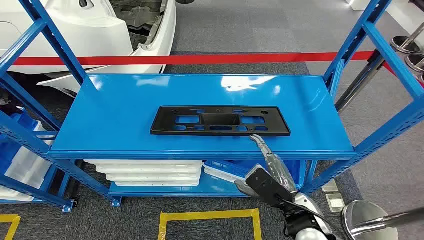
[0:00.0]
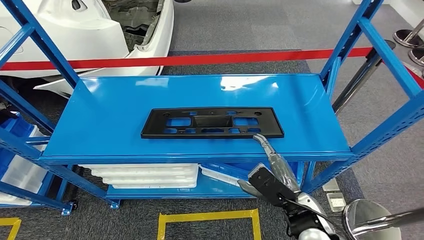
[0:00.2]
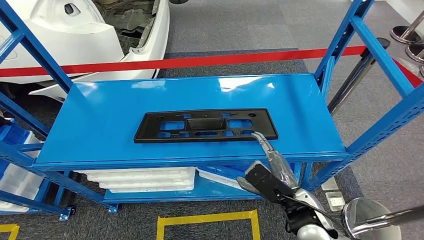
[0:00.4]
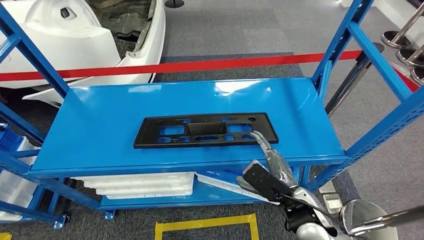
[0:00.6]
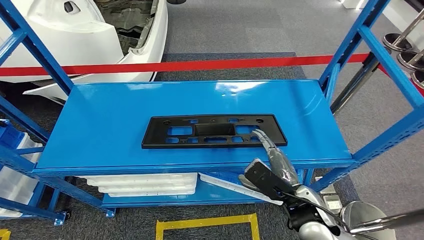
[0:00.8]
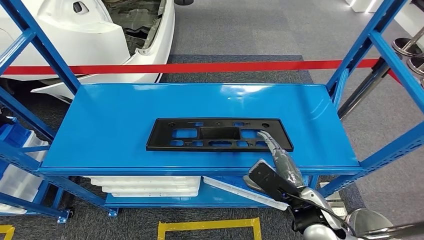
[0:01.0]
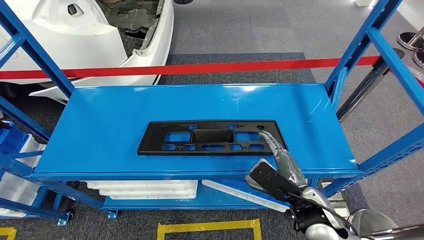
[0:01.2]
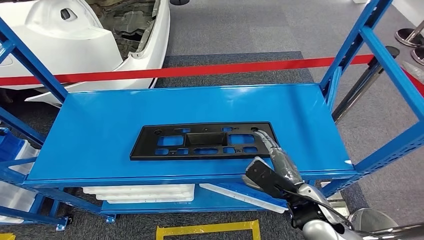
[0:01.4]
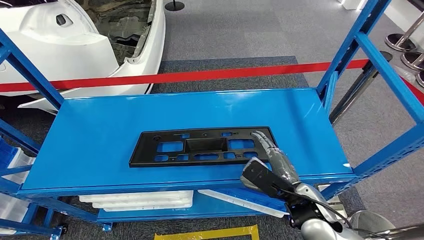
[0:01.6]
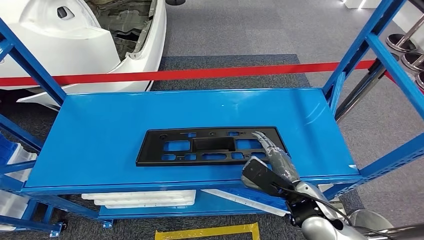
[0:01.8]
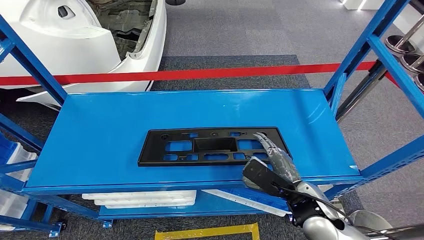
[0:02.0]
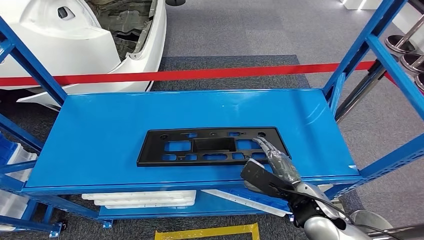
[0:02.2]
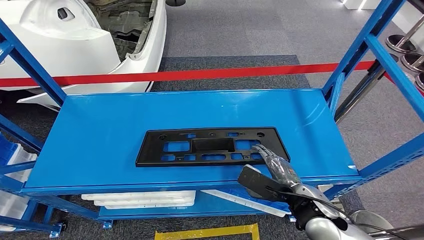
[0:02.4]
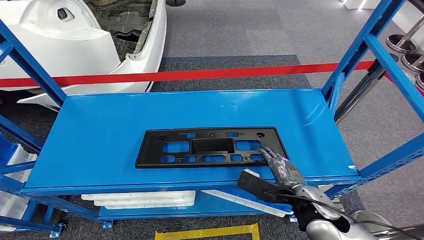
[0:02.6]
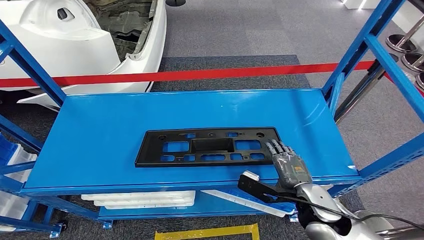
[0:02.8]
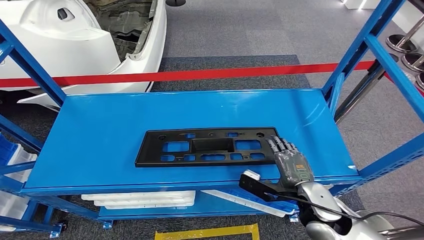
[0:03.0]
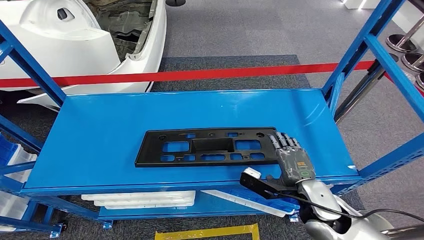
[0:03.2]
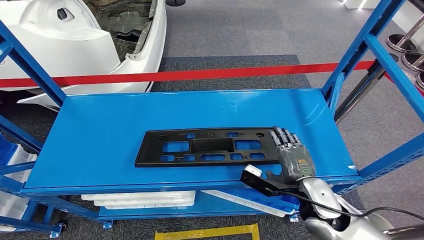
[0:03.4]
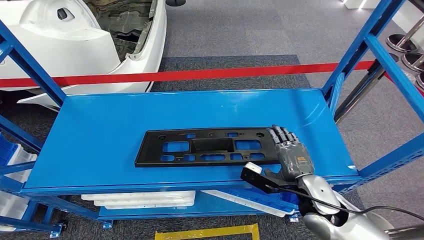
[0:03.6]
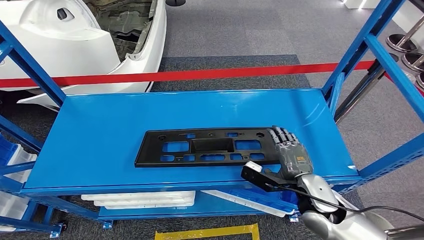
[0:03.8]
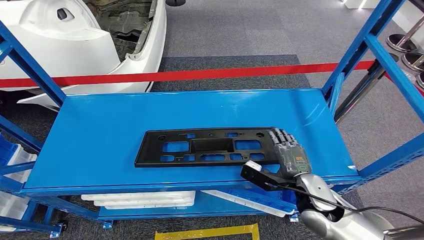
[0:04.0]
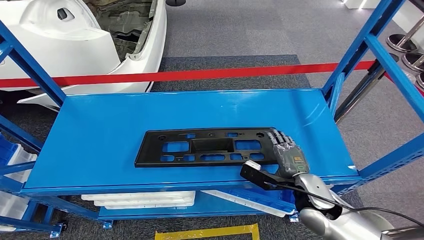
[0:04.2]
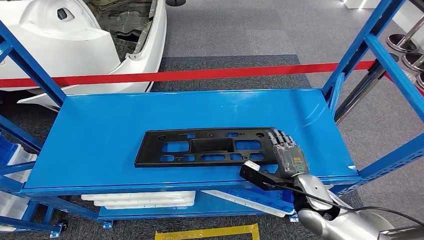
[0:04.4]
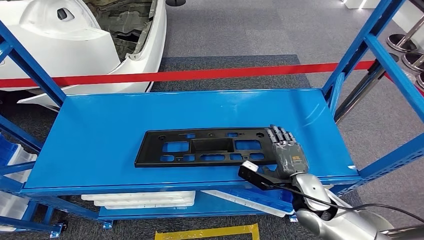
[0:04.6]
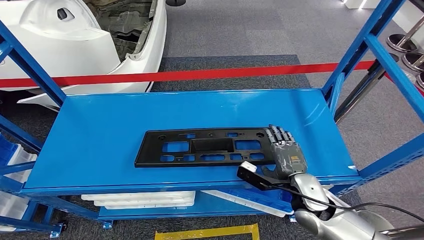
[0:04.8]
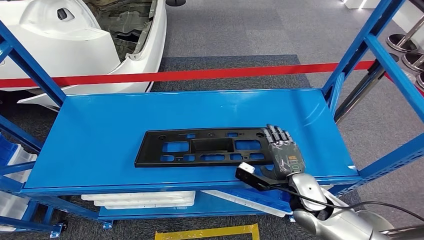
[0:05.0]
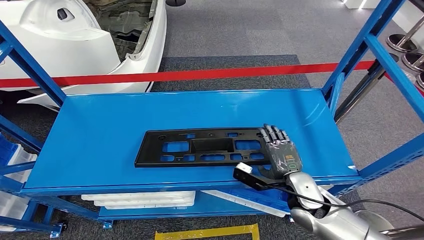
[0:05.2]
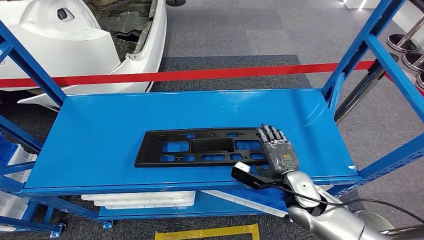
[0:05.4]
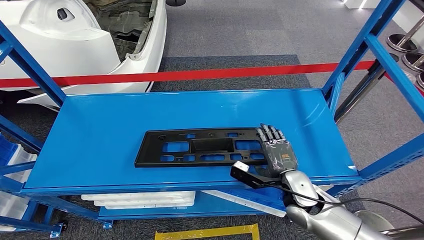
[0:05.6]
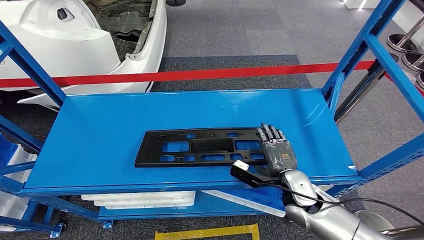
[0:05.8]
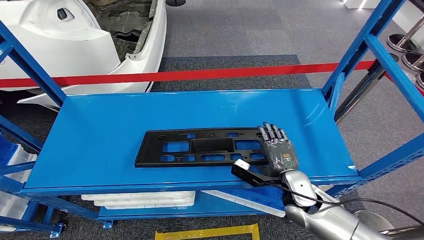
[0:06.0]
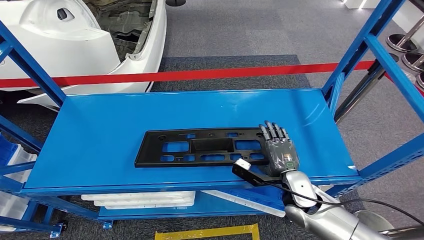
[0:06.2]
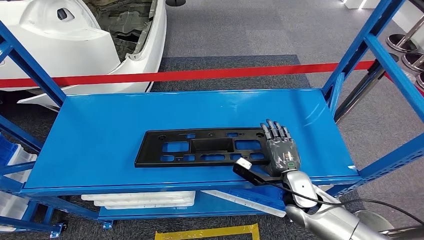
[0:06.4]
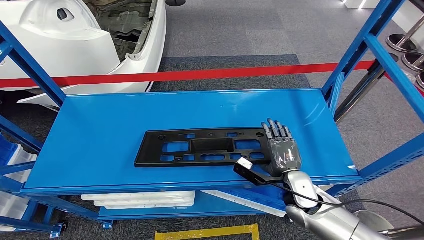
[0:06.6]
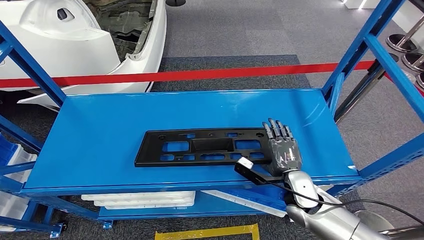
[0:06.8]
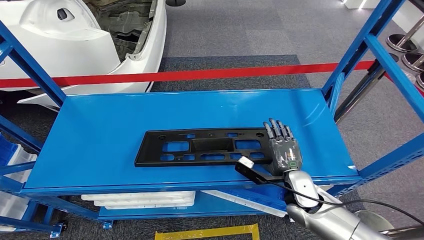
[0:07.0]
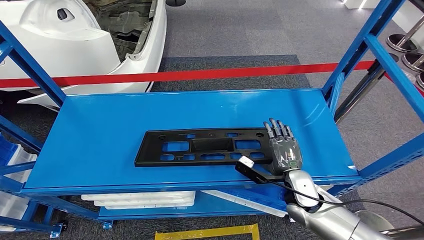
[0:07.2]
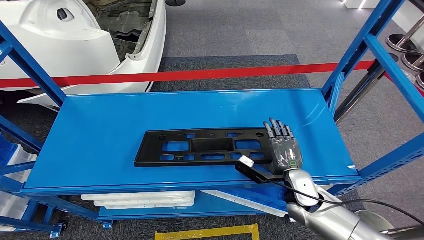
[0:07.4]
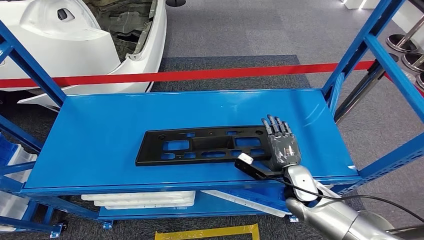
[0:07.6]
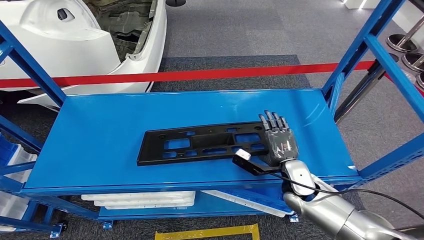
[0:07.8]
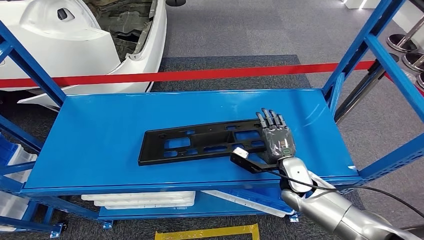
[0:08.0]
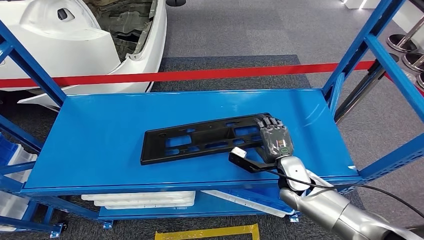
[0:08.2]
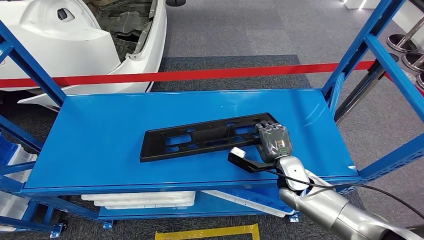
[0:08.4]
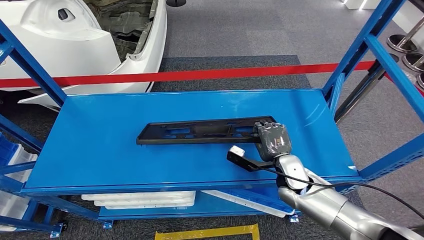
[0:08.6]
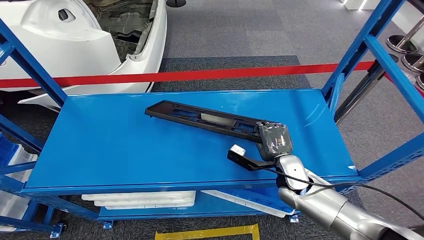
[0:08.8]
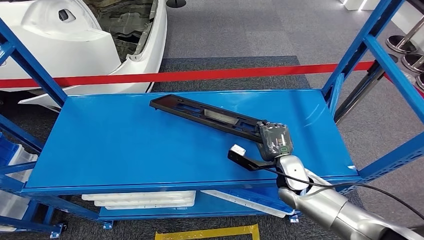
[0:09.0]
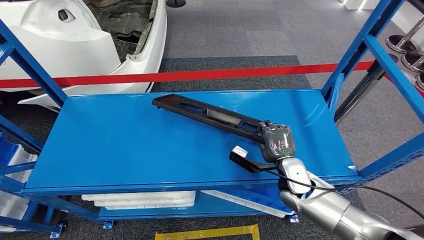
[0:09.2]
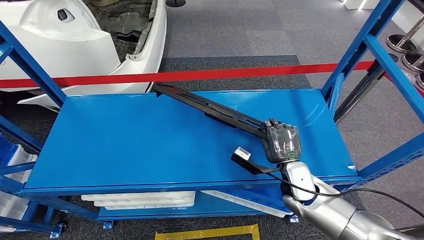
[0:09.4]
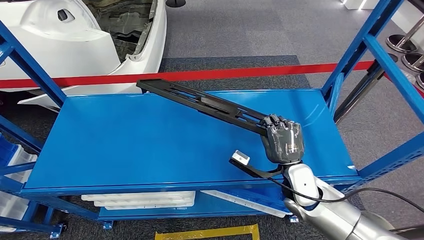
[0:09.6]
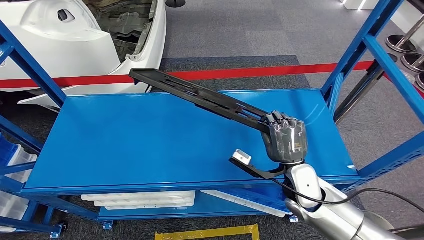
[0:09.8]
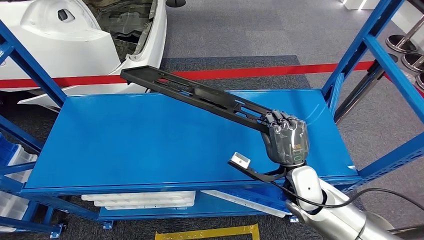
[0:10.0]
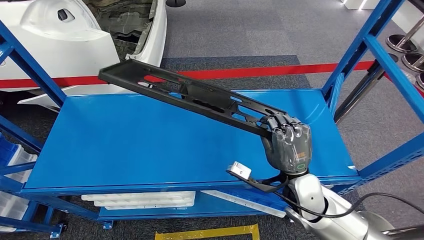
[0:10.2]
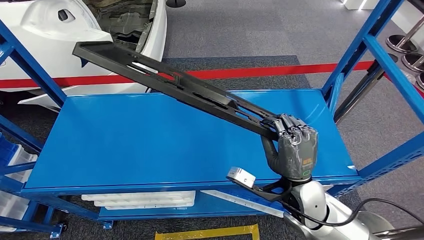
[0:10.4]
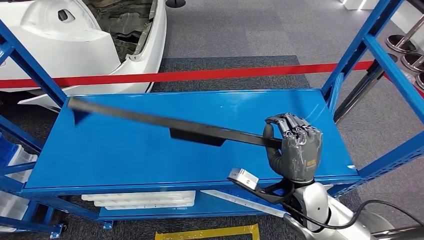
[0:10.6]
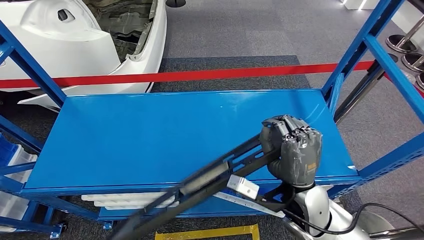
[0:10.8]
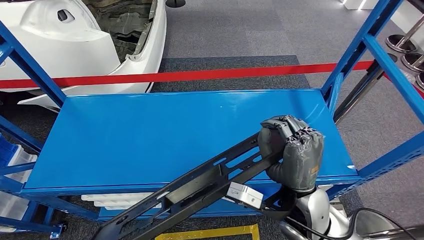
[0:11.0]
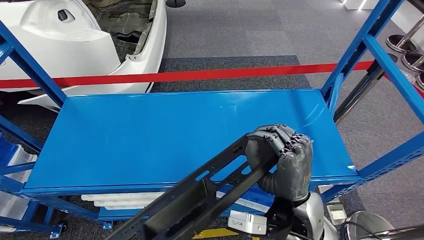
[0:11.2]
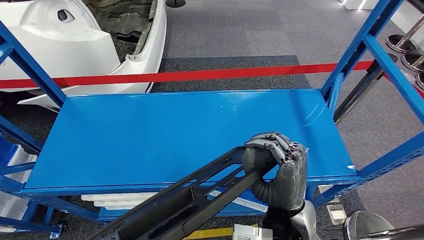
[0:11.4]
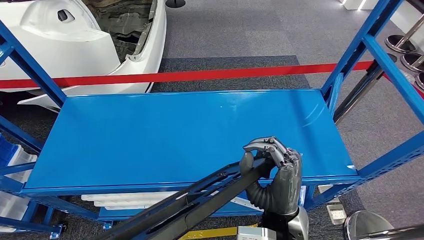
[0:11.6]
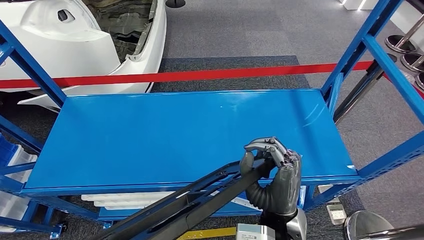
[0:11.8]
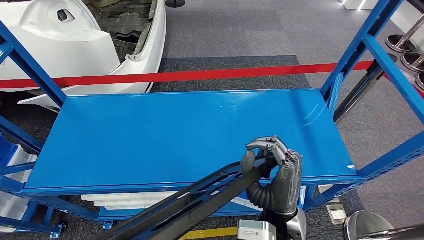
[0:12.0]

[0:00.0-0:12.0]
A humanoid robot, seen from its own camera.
0:03.0 to 0:04.4: There are only small adjustments of the hands.
0:04.4 to 0:07.6: The hands make only small movements.
0:07.6 to 0:09.0: The hands move only a little.
0:09.0 to 0:10.4: The right hand goes roughly 10 cm backward and upward.
0:10.4 to 0:12.0: The right hand travels to the left and backward by some 10 cm.

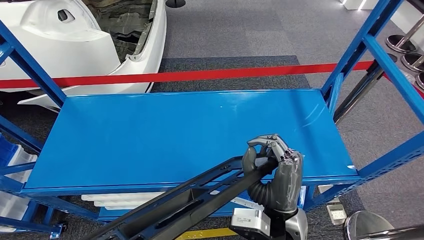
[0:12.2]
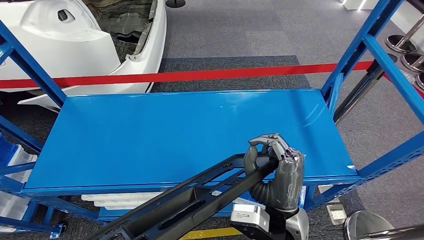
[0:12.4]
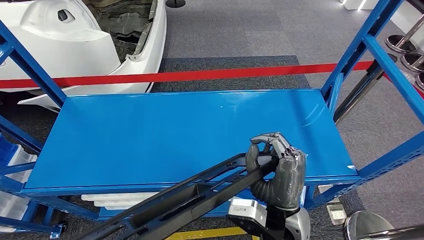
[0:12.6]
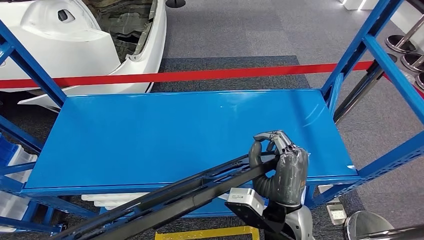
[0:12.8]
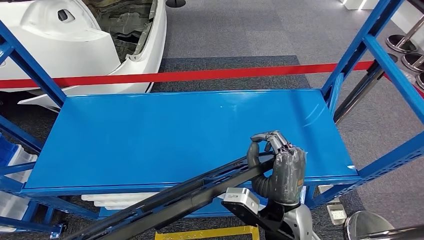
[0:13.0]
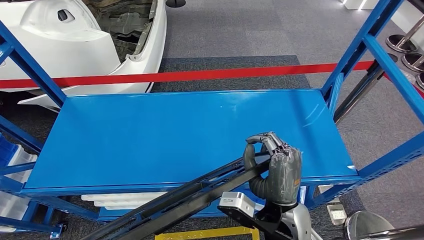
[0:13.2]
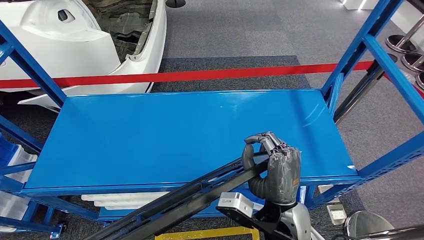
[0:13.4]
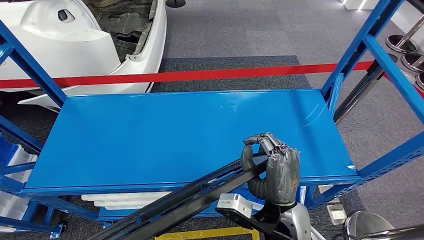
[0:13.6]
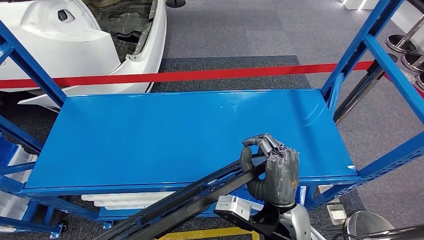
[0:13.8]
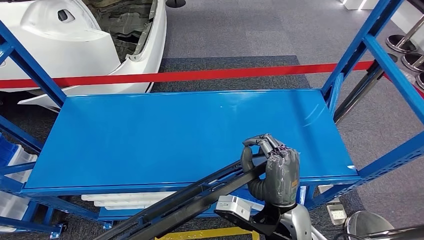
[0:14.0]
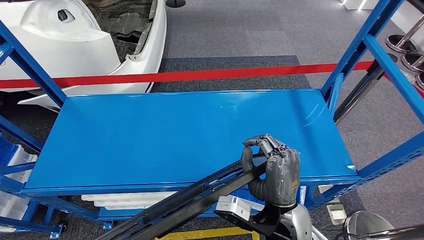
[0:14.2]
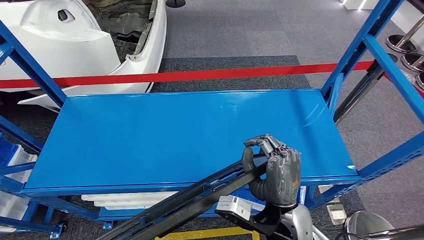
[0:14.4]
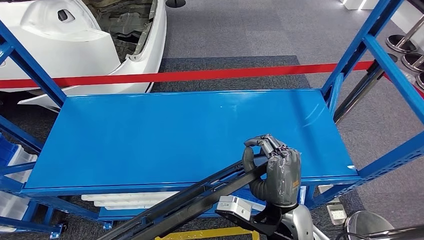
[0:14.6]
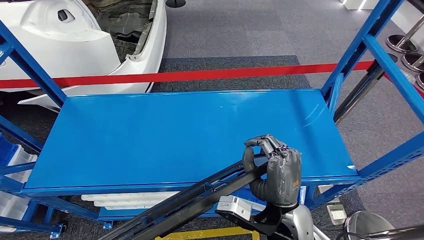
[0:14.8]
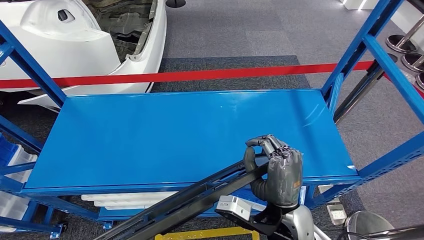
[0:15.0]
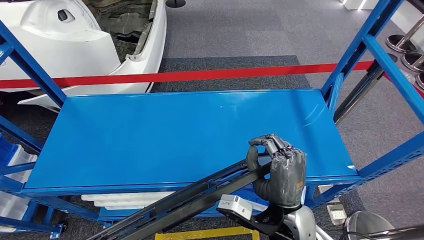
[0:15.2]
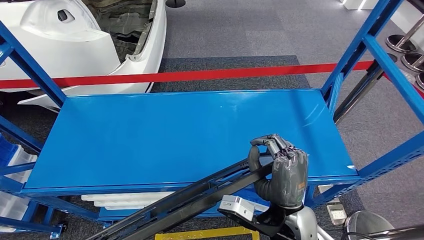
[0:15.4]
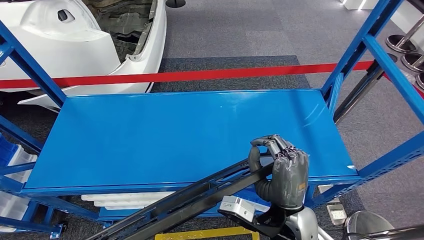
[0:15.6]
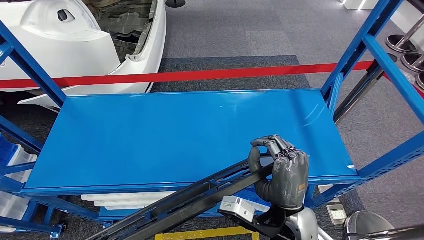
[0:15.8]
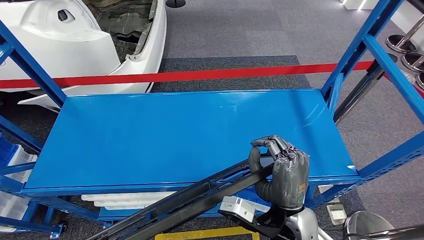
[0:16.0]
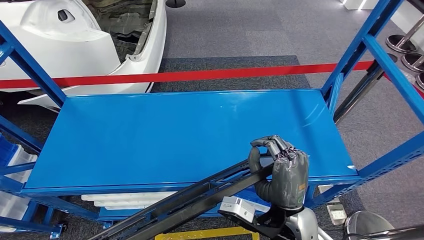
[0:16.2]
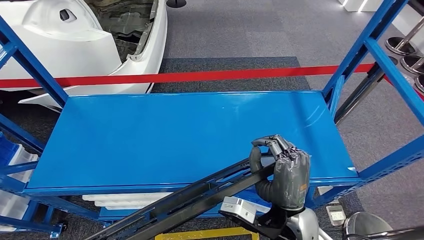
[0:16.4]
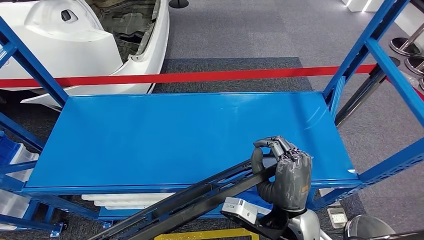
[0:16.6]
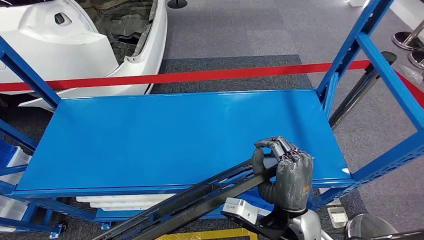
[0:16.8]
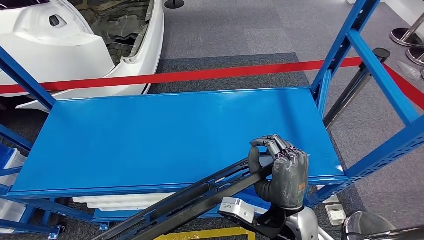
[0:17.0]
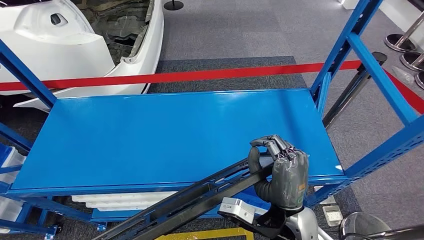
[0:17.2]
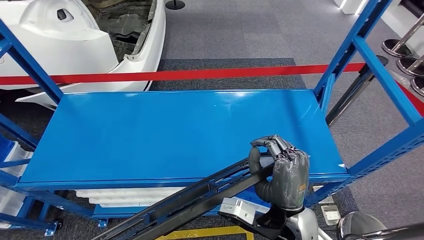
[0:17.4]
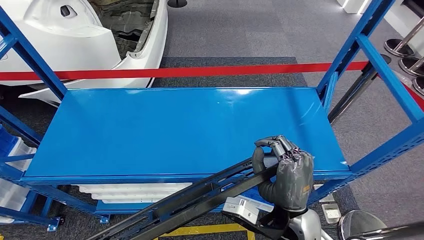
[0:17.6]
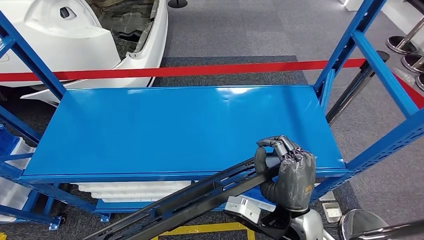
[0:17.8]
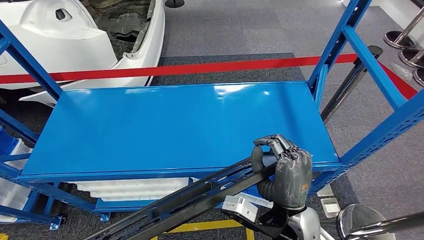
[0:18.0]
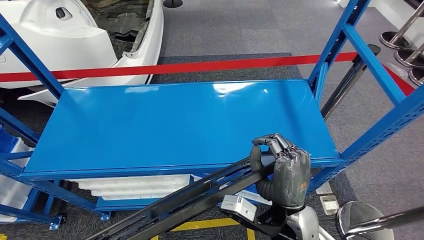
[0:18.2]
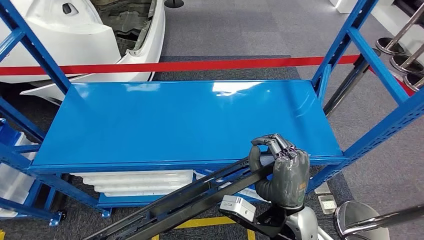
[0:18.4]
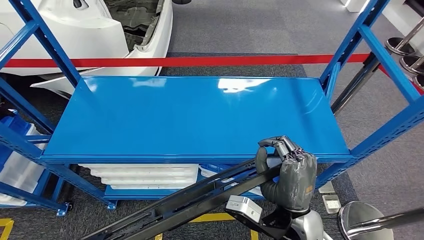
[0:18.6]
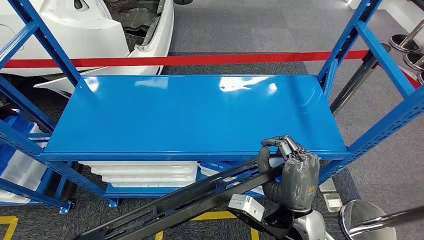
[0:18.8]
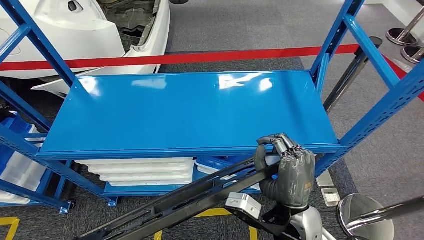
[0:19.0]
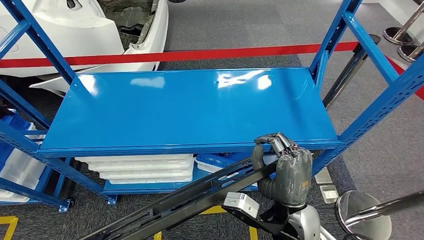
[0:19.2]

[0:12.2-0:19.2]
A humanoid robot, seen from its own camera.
Step, 0:12.2 to 0:17.0: Pick up the large material from the shelf.
0:12.2 to 0:13.6: The hands move only a little.
0:13.6 to 0:15.0: Neither hand changes place.
0:15.0 to 0:16.4: The hands make only small movements.
